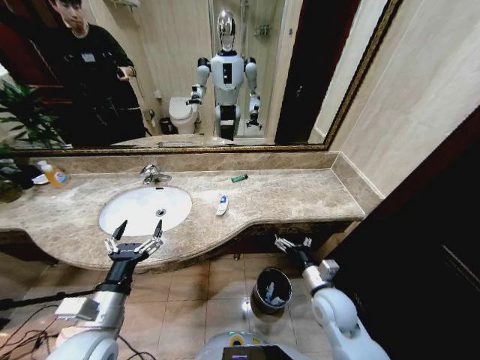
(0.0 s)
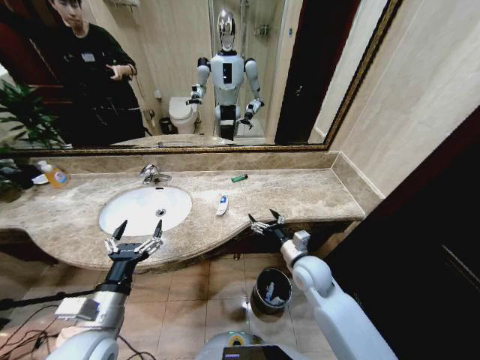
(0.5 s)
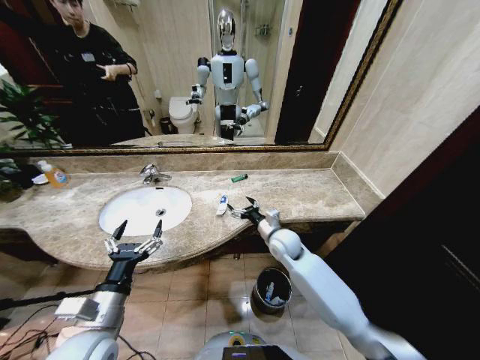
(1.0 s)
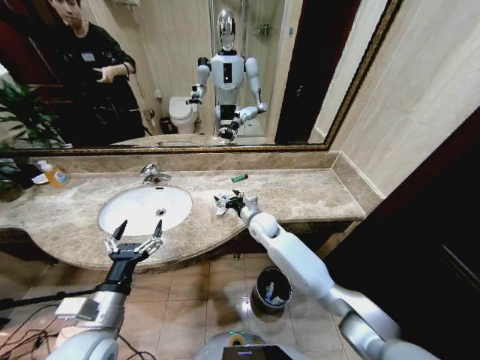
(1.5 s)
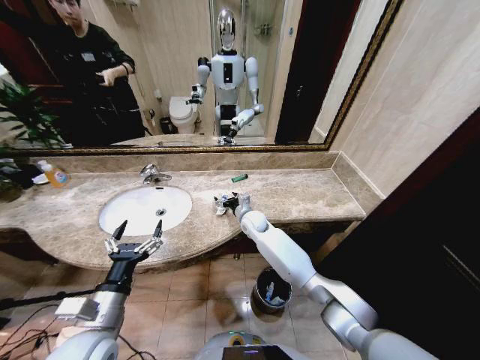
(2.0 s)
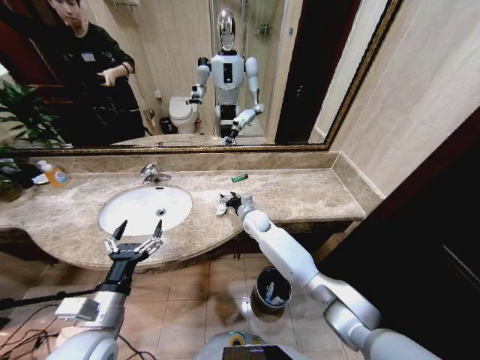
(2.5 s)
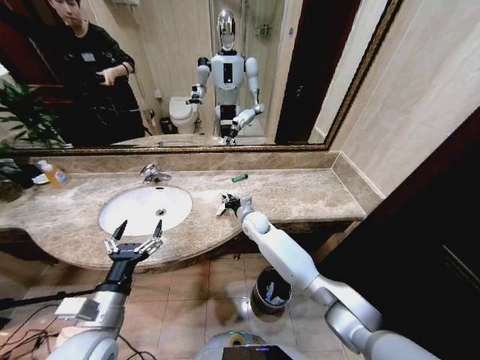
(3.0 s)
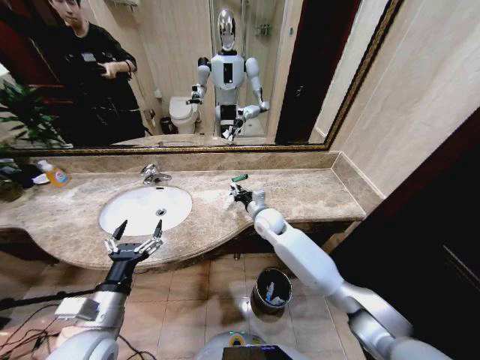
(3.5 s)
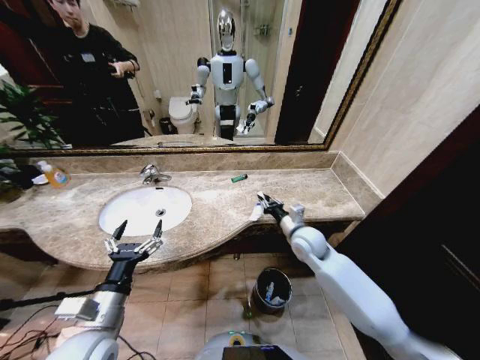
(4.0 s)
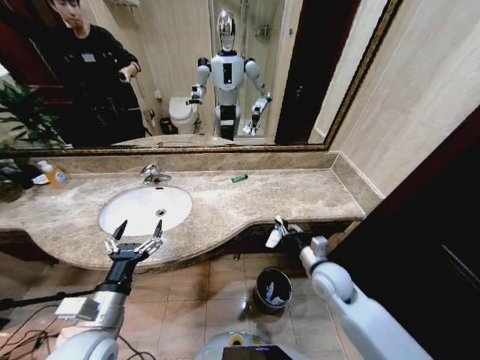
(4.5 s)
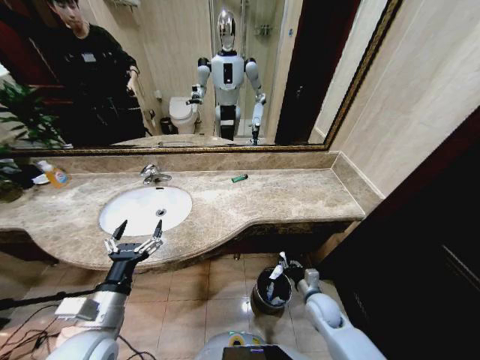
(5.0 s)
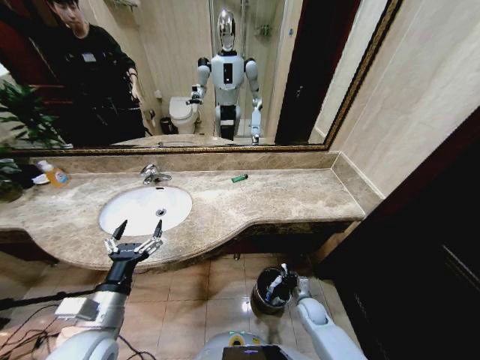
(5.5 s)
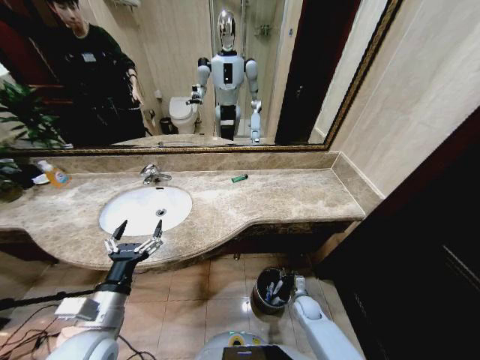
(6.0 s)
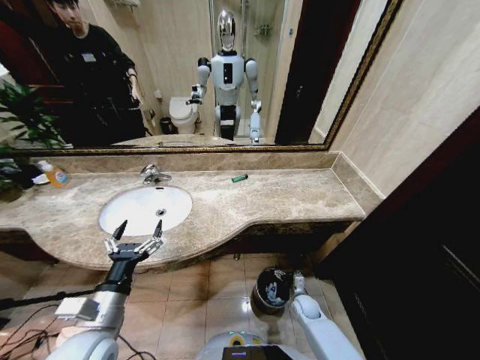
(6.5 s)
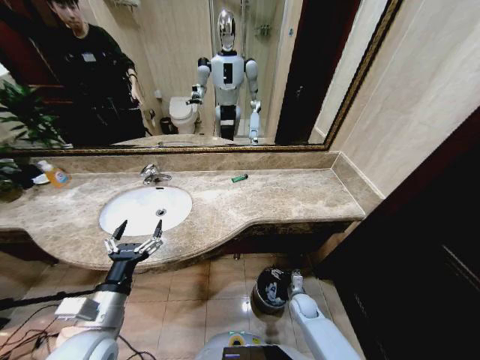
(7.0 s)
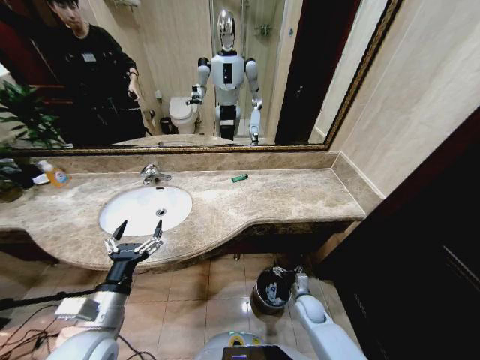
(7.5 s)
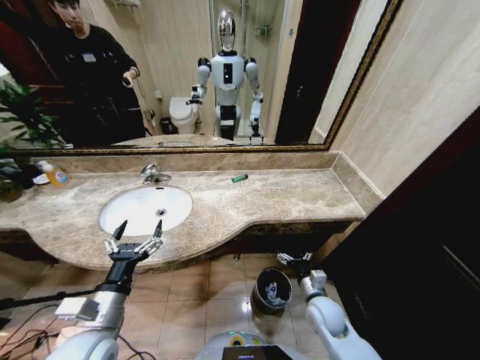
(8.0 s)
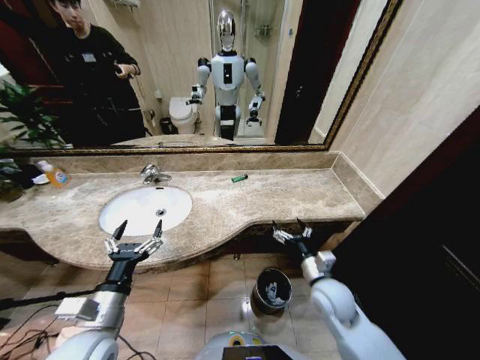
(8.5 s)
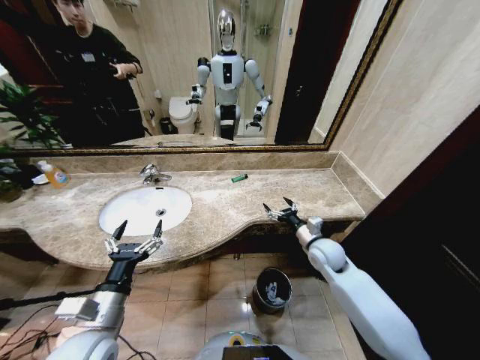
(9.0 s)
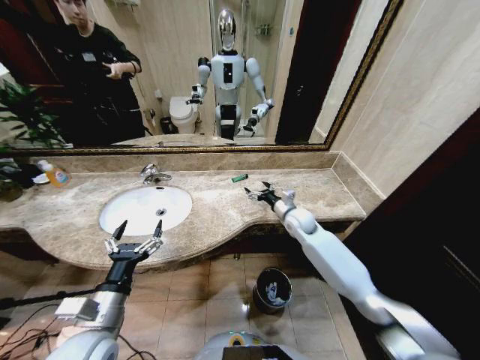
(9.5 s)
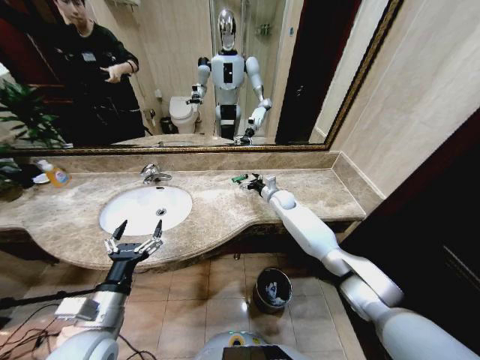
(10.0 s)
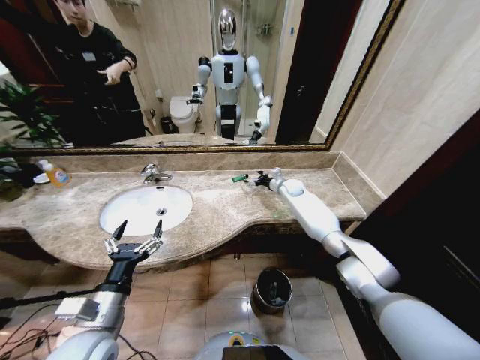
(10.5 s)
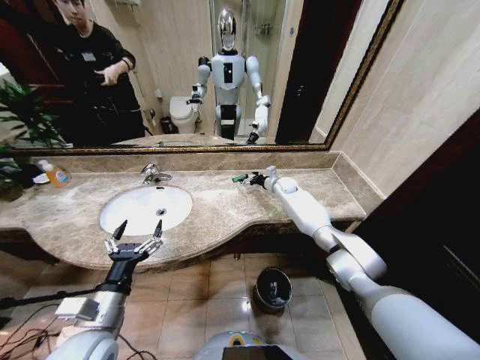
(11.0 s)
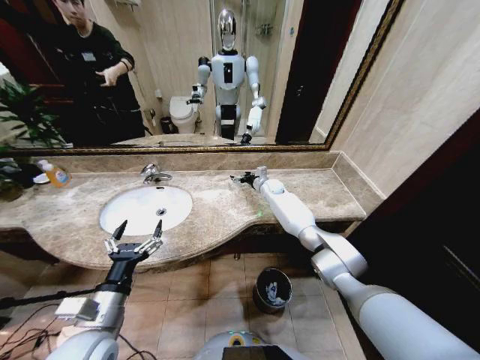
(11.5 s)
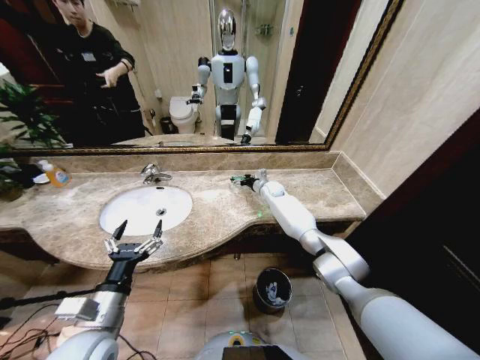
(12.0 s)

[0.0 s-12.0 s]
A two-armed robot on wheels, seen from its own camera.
Task of the whole recording: Pick up the trash from the sink and place it in the trash bin.
0.0 to 2.0 s: The right gripper goes approximately 35 cm forward and to the left.
2.0 to 4.0 s: The right gripper shifts approximately 20 cm to the right and backward, and closes.
4.0 to 6.0 s: The right gripper moves downward, about 30 cm.
6.0 to 8.0 s: The right gripper travels upward by some 15 cm, and opens up.
8.0 to 10.0 s: The right gripper travels forward by approximately 35 cm.
10.0 to 12.0 s: The right gripper heads forward, covering roughly 5 cm, and goes to the right and returns, some 5 cm each way.

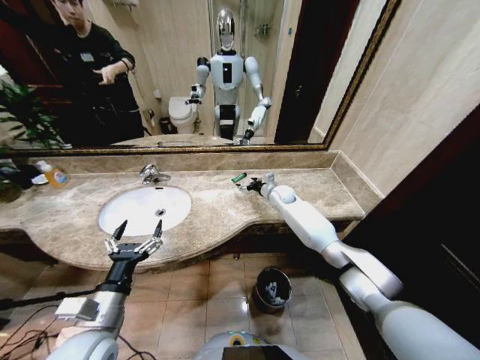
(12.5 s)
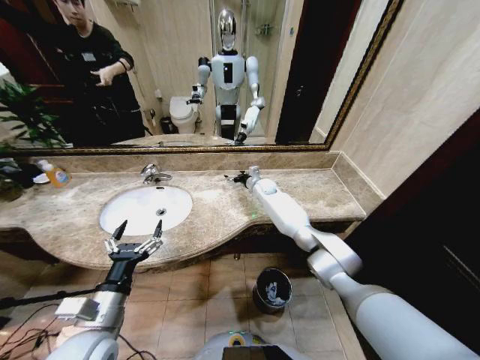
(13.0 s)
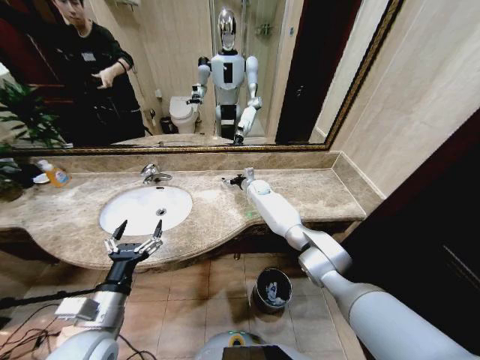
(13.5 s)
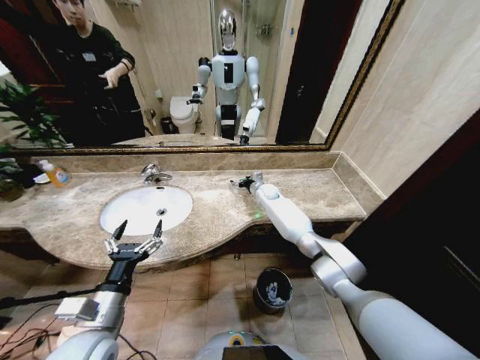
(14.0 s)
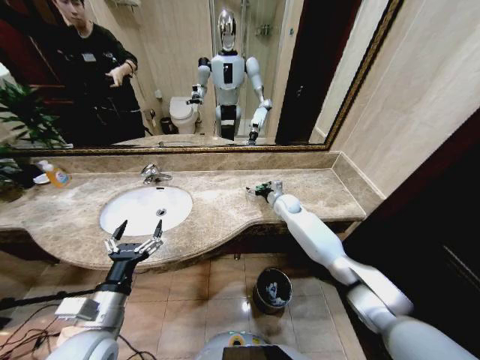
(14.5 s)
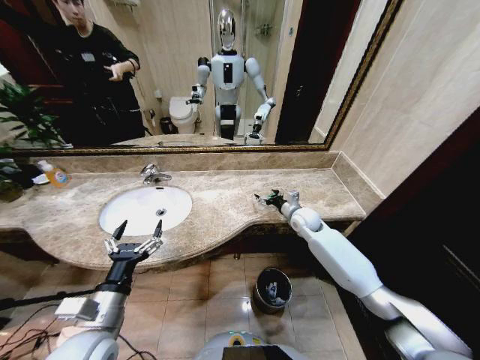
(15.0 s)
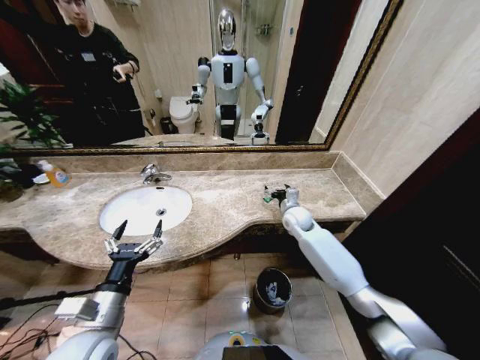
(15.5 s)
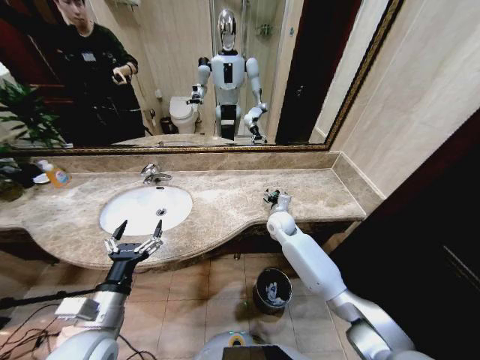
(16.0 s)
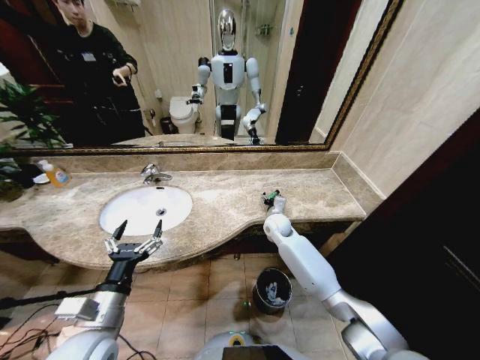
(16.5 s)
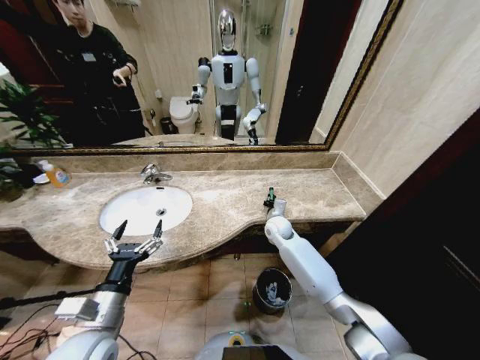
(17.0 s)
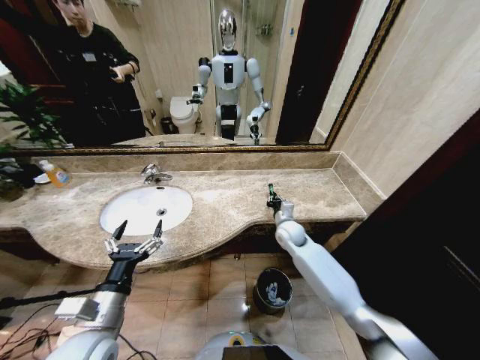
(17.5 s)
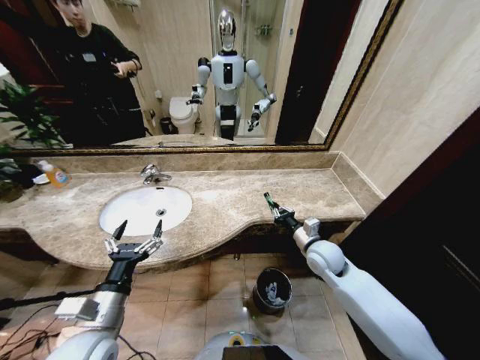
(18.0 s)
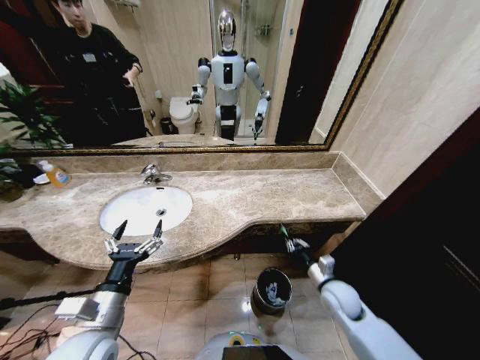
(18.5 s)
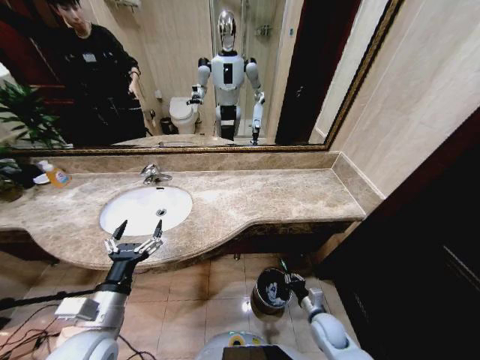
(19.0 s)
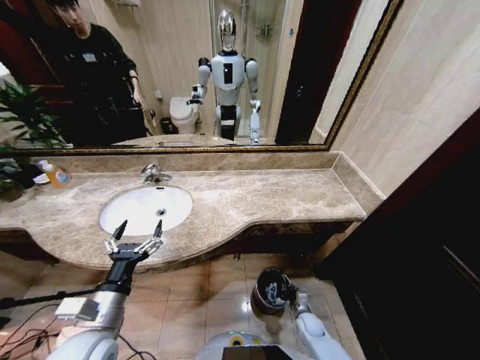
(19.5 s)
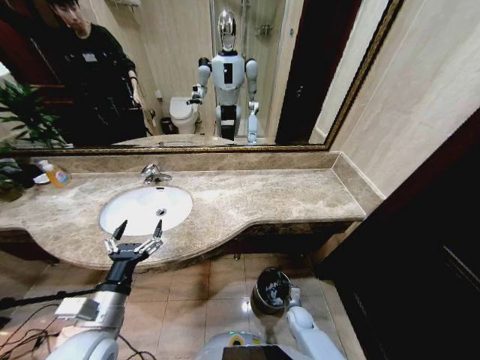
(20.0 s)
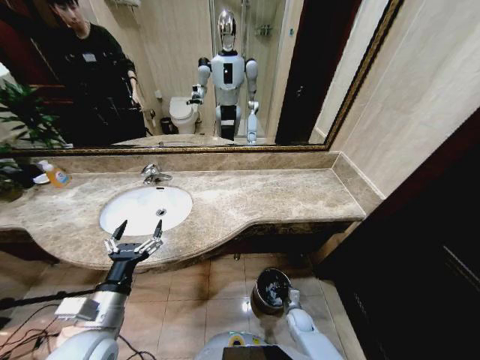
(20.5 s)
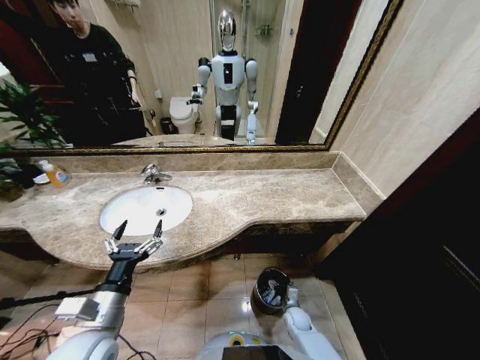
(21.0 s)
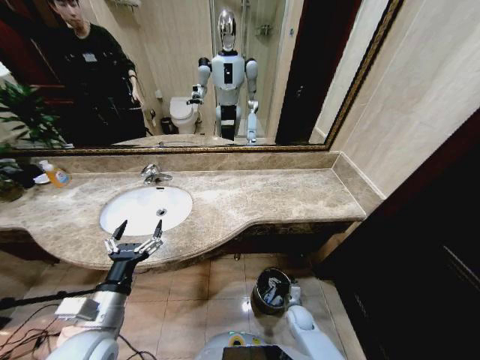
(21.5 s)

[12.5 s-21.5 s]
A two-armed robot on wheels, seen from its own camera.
Task of the whole recording: Pick up the trash from the sink and place it in the trash bin.
12.5 to 14.5 s: The right gripper goes to the left and returns, some 10 cm each way.
14.5 to 17.0 s: The right gripper is displaced backward and to the left by approximately 10 cm, and closes its fingers.
17.0 to 19.5 s: The right gripper is displaced downward, backward and to the right by some 40 cm.
19.5 to 21.5 s: The right gripper opens up.

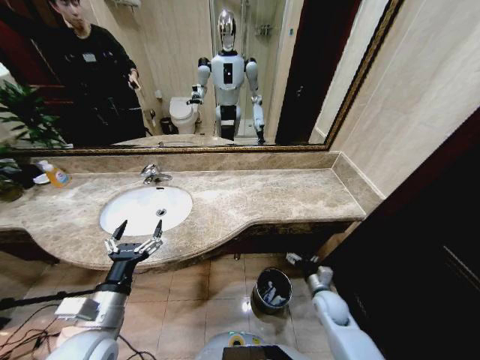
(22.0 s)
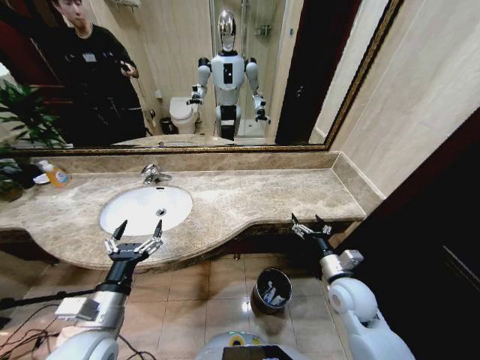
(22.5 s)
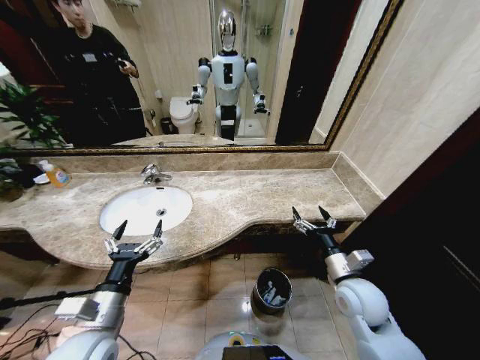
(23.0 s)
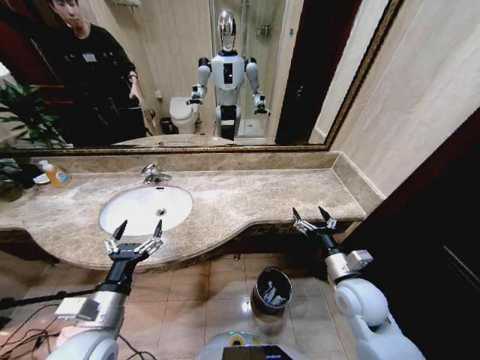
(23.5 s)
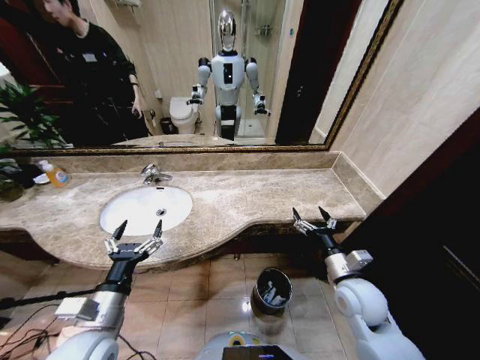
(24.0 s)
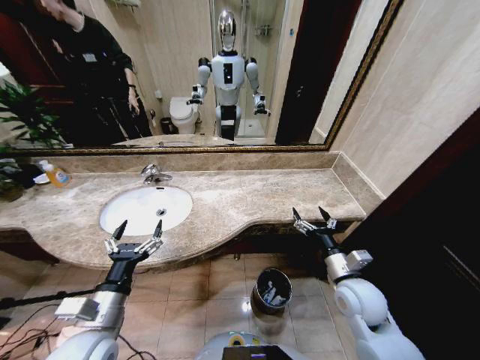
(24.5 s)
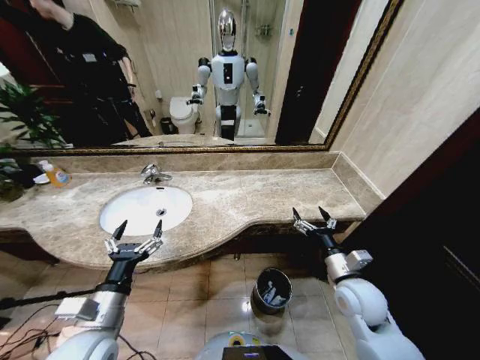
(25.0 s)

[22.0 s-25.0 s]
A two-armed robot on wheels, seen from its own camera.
Task of the whole recording: Pick up the trash from the sink and place it in the trash bin.
22.0 to 23.5 s: The right gripper travels upward by approximately 20 cm.
23.5 to 25.0 s: Both grippers stay about where they are.

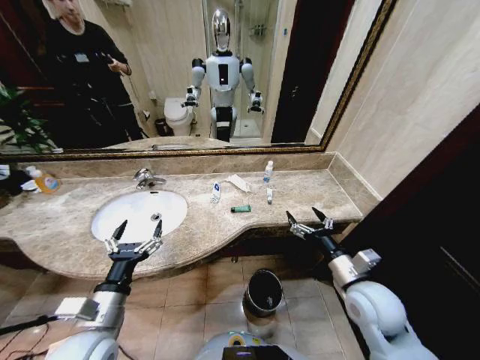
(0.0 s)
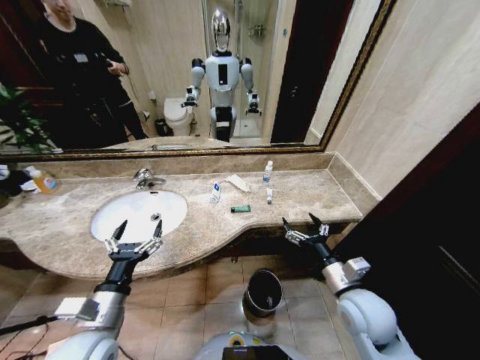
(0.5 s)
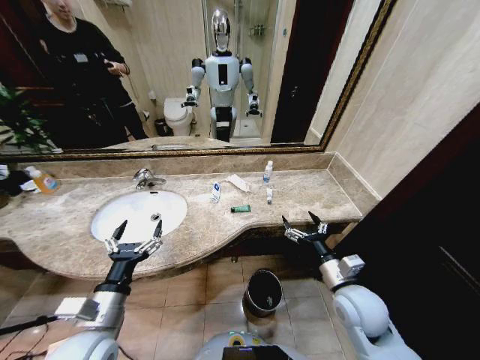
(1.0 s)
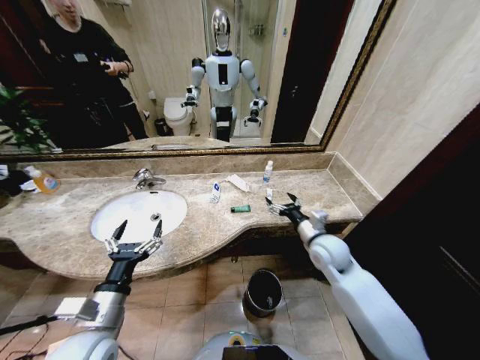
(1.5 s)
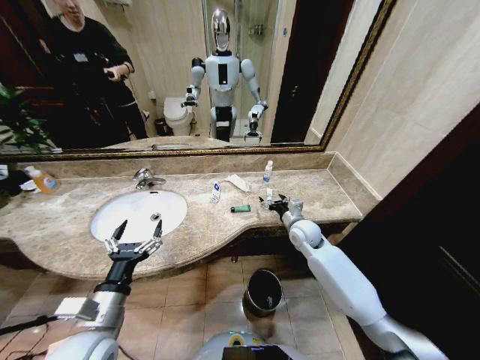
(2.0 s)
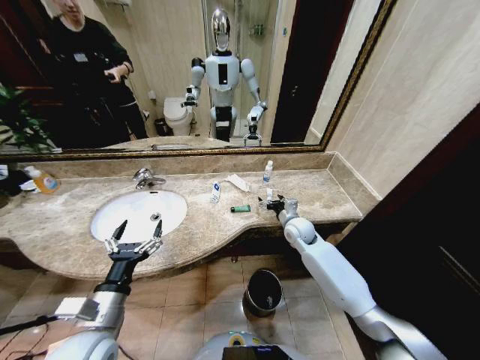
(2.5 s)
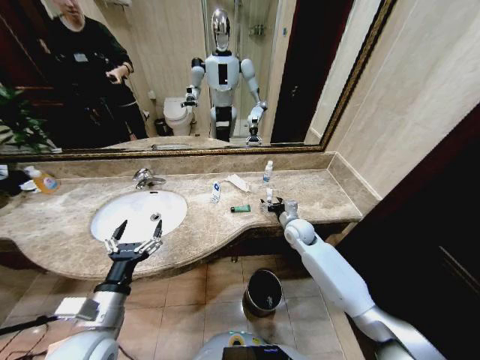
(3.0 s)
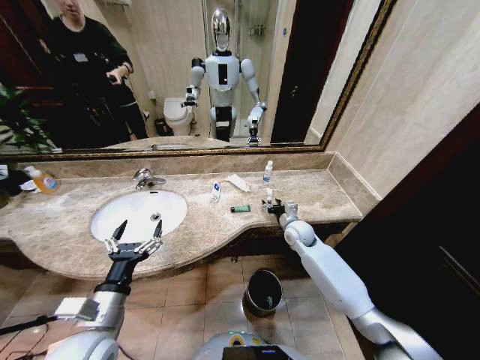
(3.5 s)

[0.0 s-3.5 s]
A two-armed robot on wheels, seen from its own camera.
Task of the whole recording: Pick up the trash from the sink and place it in the trash bin.
2.0 to 3.5 s: The grippers make only small movements.
